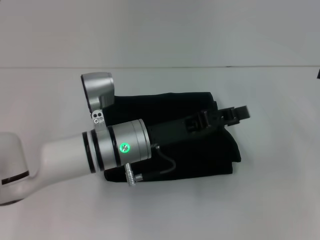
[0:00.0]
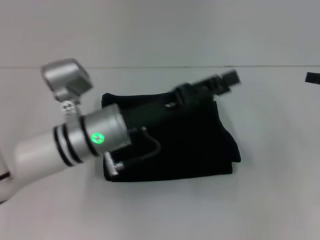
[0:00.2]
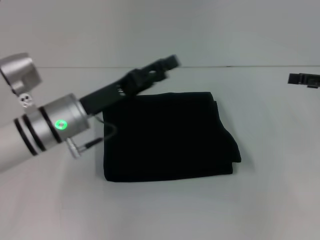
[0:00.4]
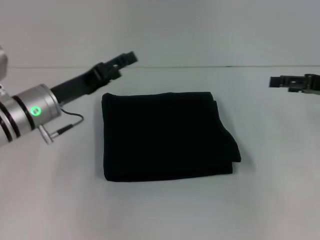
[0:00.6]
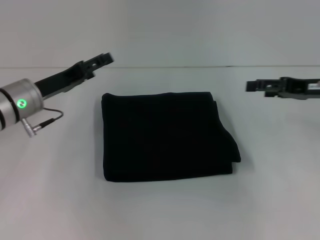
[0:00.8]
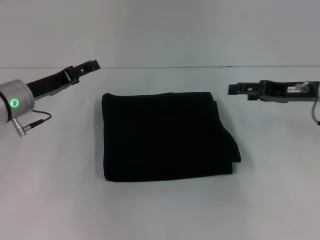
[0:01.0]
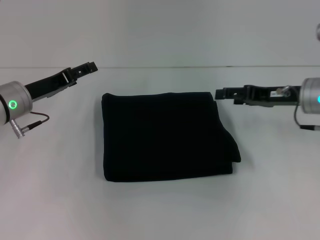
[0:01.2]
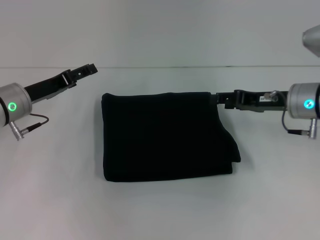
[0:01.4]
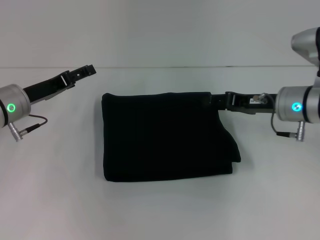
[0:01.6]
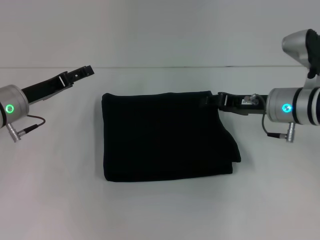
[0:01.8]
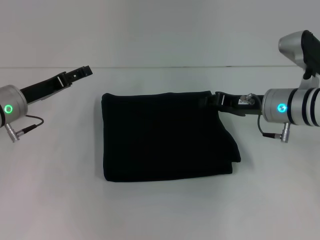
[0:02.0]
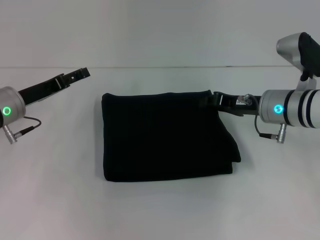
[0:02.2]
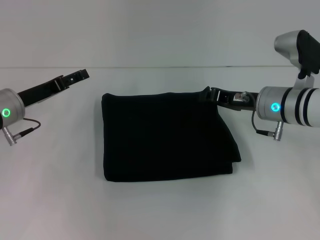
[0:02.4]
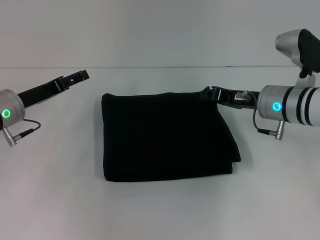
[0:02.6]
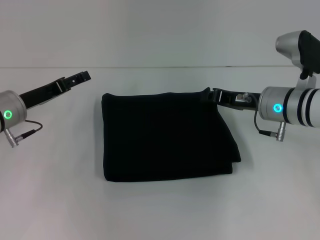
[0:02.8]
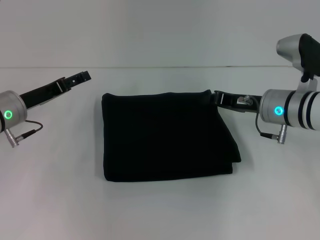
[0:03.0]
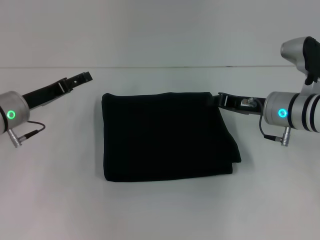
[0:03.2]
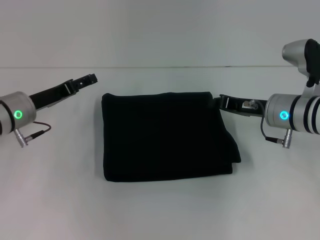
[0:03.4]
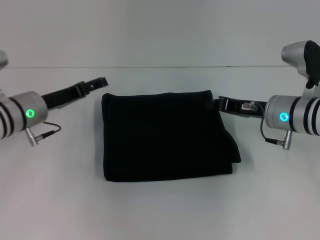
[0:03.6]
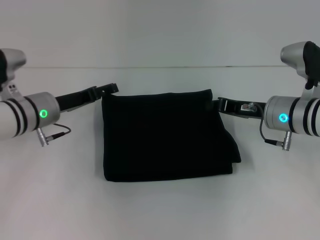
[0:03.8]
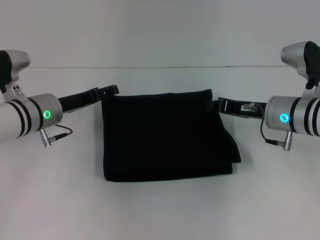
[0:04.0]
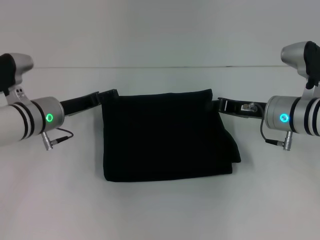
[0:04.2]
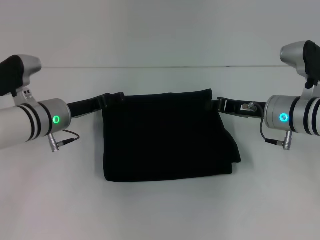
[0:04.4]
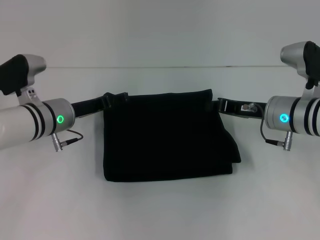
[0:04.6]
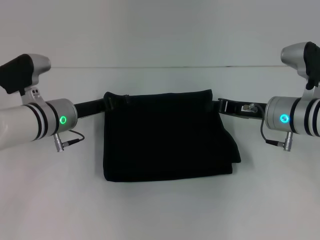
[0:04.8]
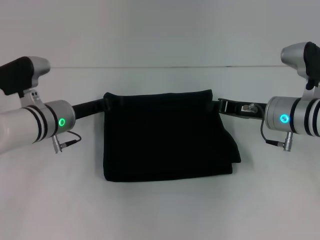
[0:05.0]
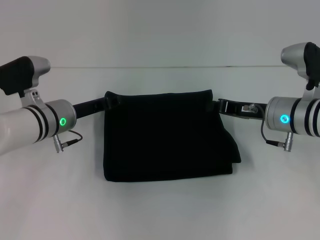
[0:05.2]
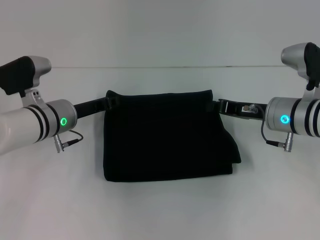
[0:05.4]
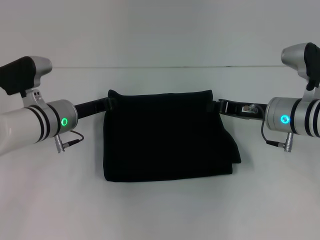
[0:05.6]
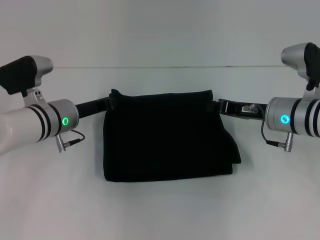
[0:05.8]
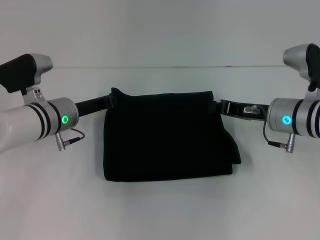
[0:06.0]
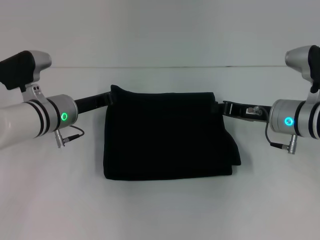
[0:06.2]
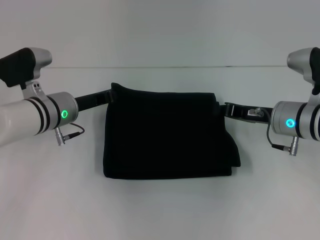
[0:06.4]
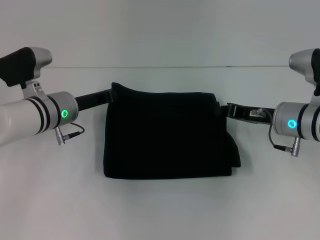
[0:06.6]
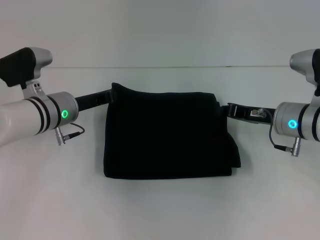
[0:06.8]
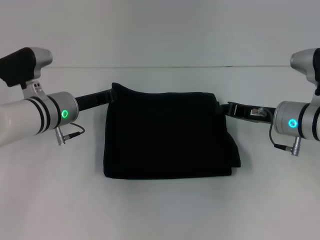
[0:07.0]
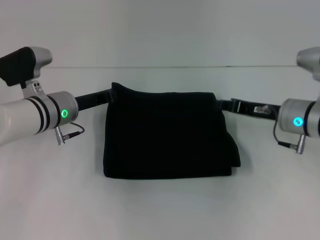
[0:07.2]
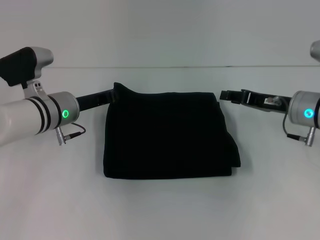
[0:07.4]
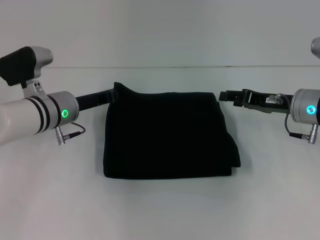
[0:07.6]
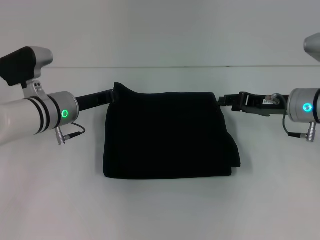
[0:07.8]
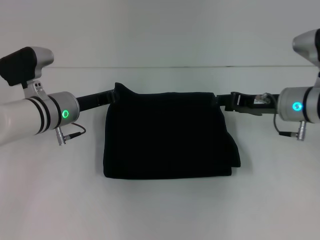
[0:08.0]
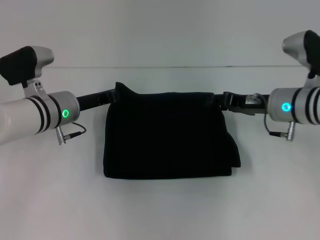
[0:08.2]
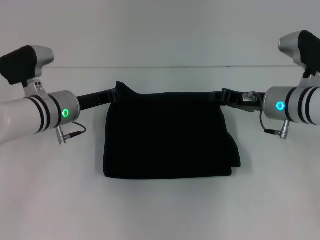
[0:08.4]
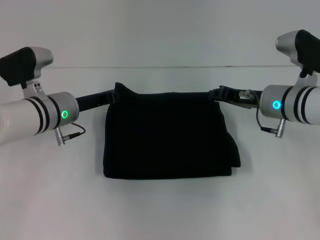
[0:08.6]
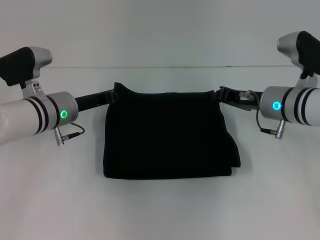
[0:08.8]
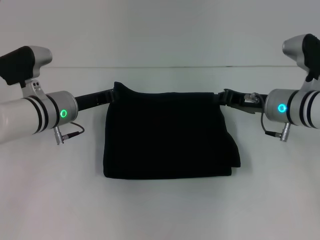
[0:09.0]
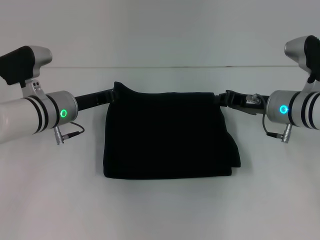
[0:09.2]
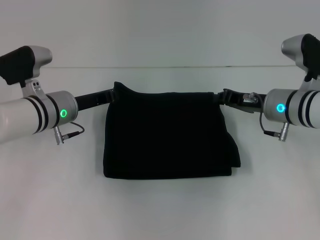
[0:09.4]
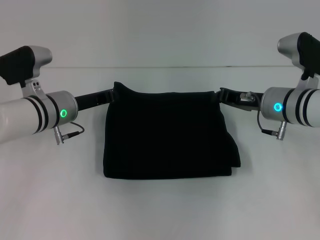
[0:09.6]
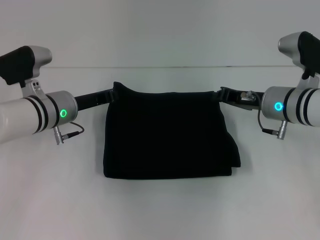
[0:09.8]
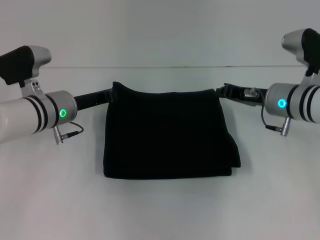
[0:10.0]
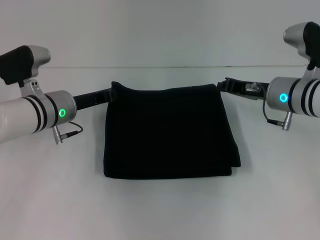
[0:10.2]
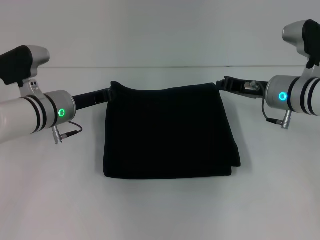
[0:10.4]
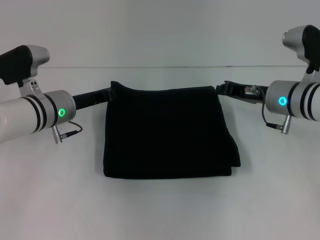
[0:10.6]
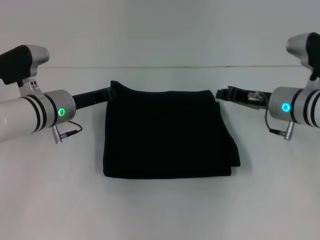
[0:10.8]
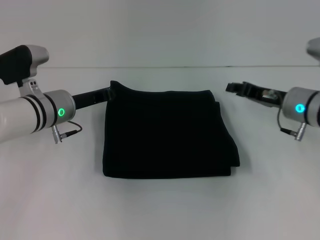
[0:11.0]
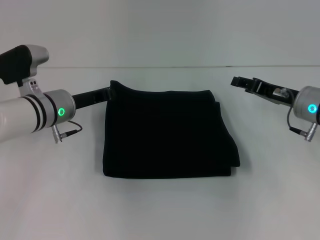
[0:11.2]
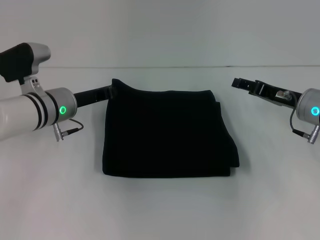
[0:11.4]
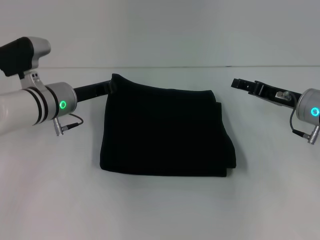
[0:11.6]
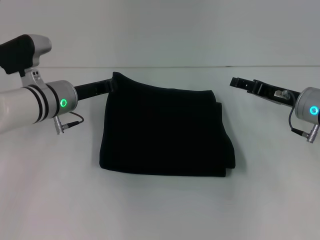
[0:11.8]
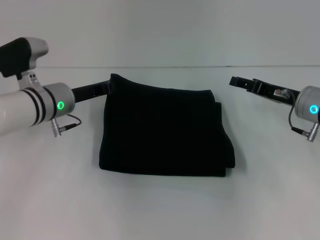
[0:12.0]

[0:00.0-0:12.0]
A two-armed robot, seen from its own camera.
0:00.0 to 0:01.6: Both grippers travel together to the left, roughly 20 cm. The left gripper opens.
0:01.6 to 0:03.0: The right gripper closes its fingers.
0:03.0 to 0:04.4: The left gripper is displaced to the right by roughly 5 cm.
0:04.4 to 0:06.0: The left gripper closes.
0:06.0 to 0:10.4: There are only small adjustments of the grippers.
0:10.4 to 0:12.0: The right gripper ends up roughly 5 cm from where it was, and opens up.

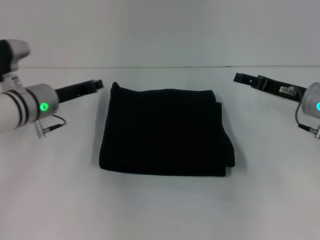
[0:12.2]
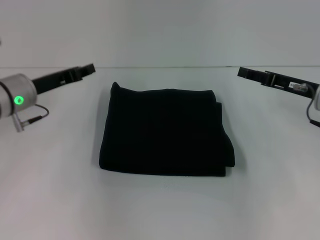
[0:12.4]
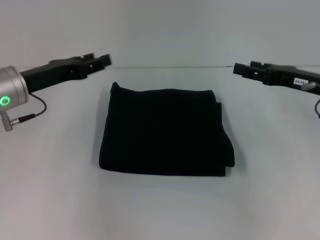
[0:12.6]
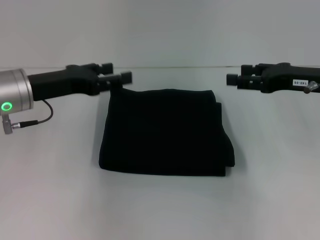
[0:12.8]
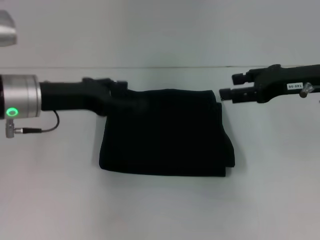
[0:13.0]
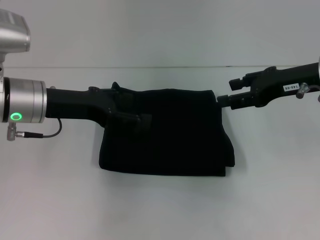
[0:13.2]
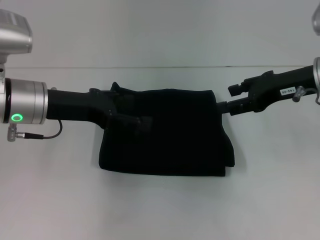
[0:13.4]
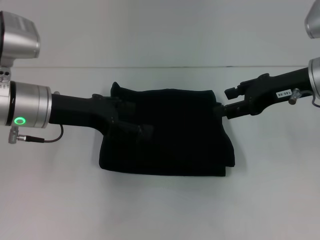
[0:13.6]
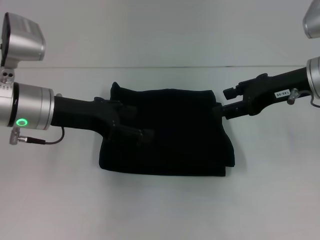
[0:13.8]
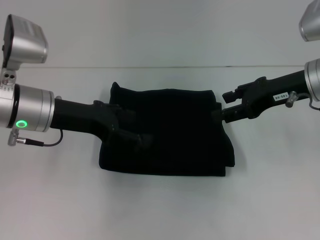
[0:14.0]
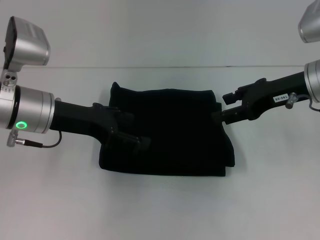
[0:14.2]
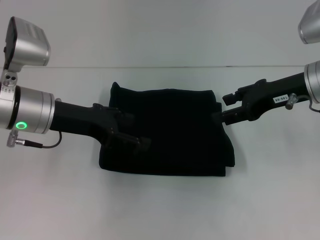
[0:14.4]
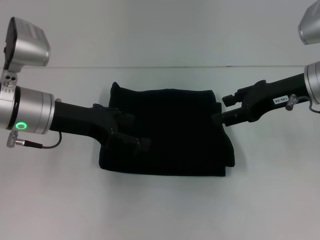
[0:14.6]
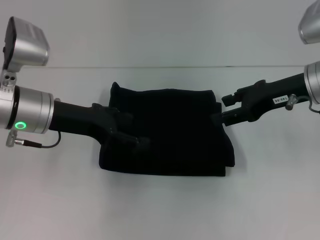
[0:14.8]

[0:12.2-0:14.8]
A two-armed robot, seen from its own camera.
0:12.2 to 0:13.4: The left gripper is displaced upward and backward by about 10 cm, and opens its fingers; the right gripper shifts some 10 cm upward.
0:13.4 to 0:14.8: The grippers move only a little.

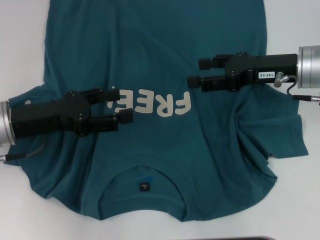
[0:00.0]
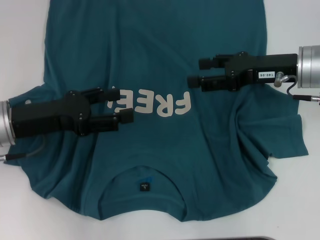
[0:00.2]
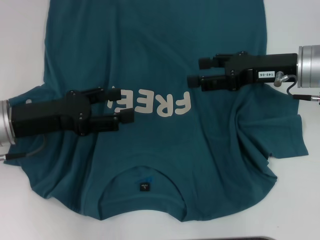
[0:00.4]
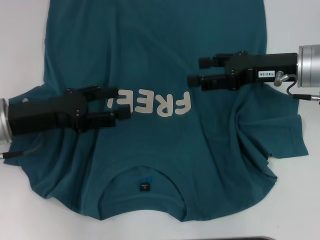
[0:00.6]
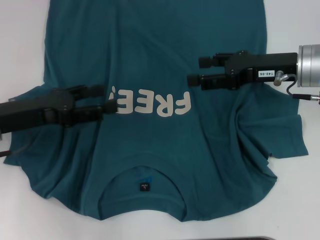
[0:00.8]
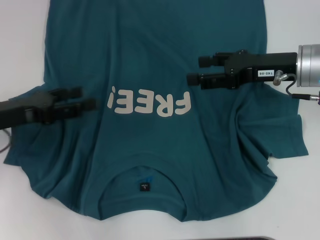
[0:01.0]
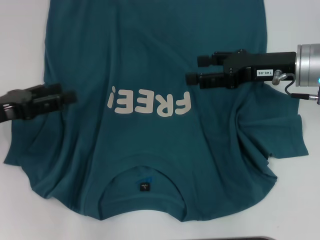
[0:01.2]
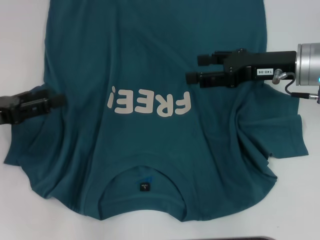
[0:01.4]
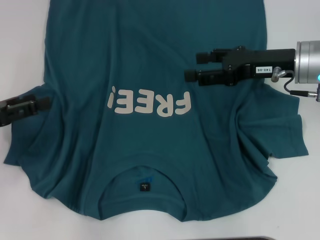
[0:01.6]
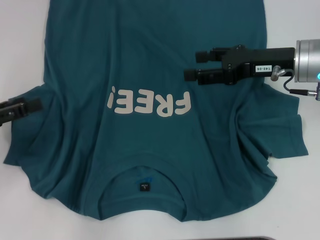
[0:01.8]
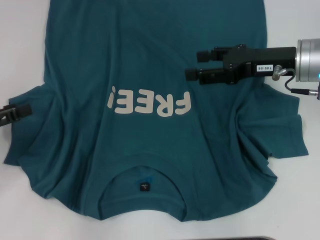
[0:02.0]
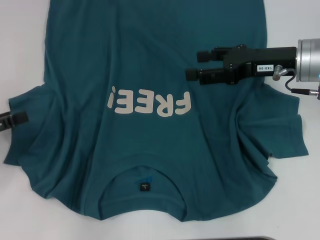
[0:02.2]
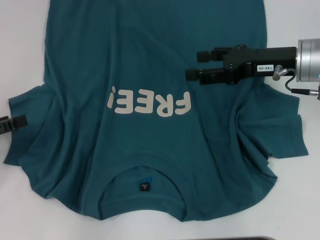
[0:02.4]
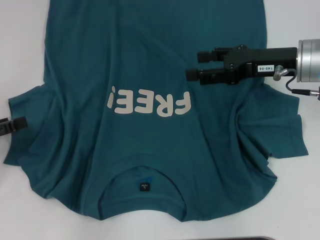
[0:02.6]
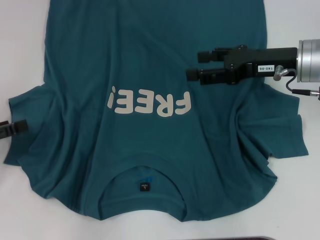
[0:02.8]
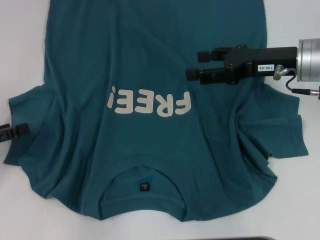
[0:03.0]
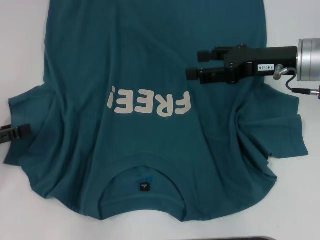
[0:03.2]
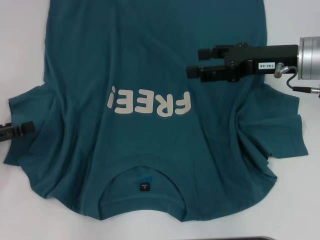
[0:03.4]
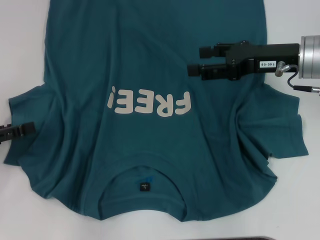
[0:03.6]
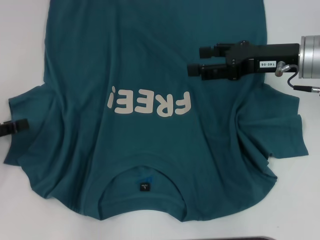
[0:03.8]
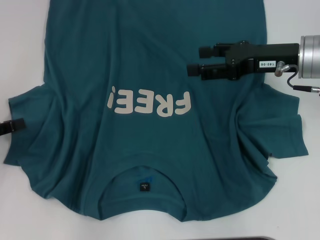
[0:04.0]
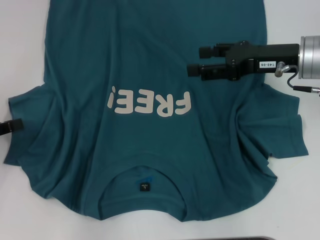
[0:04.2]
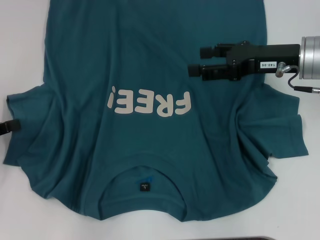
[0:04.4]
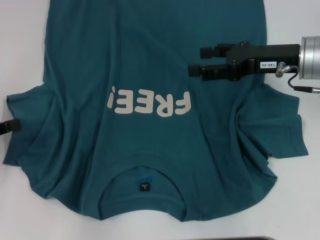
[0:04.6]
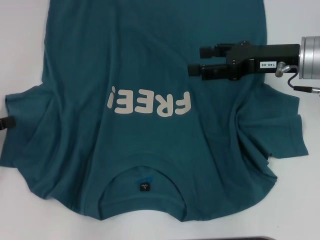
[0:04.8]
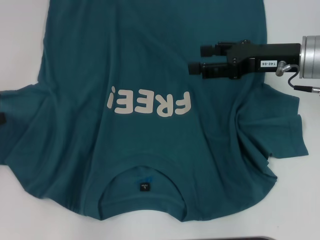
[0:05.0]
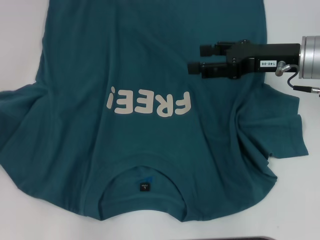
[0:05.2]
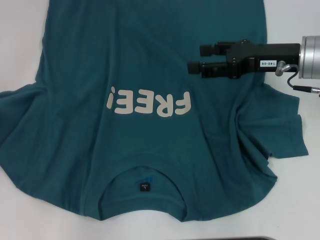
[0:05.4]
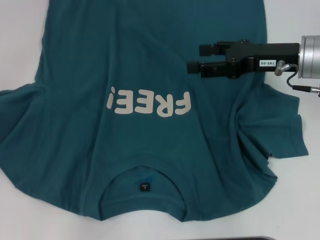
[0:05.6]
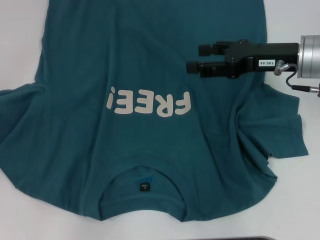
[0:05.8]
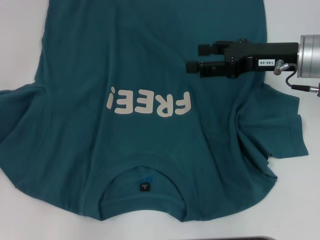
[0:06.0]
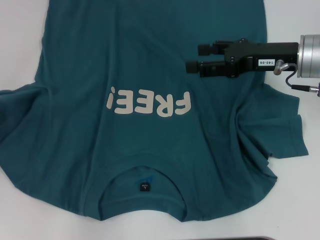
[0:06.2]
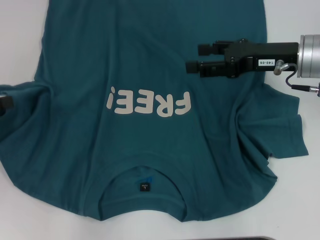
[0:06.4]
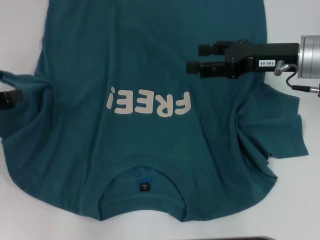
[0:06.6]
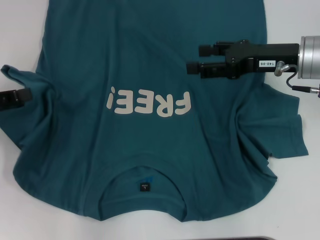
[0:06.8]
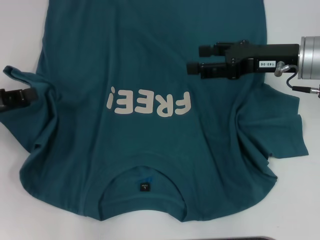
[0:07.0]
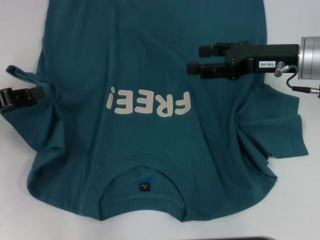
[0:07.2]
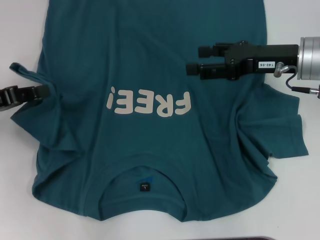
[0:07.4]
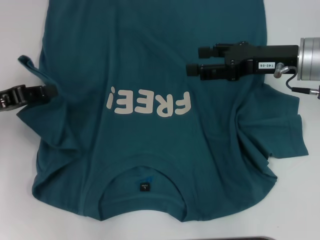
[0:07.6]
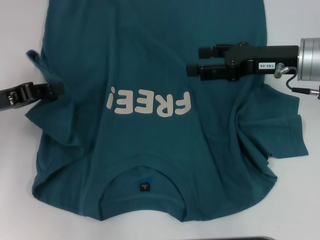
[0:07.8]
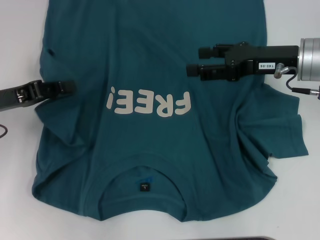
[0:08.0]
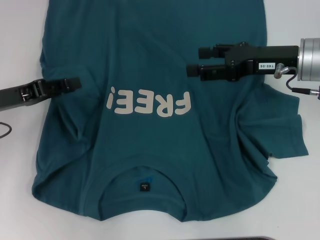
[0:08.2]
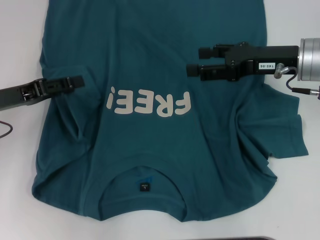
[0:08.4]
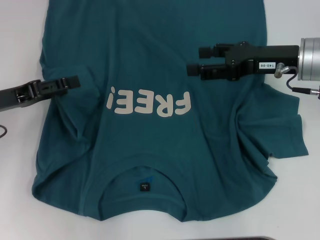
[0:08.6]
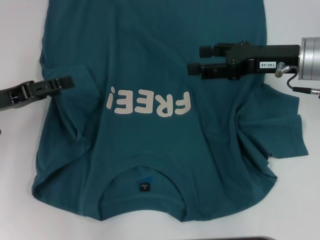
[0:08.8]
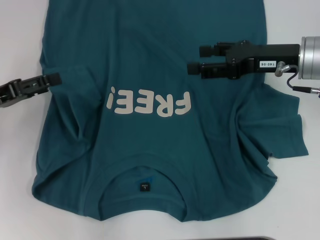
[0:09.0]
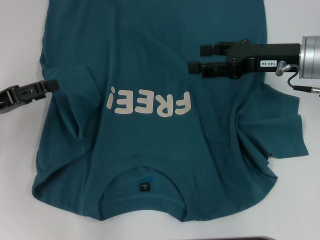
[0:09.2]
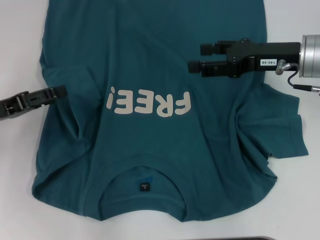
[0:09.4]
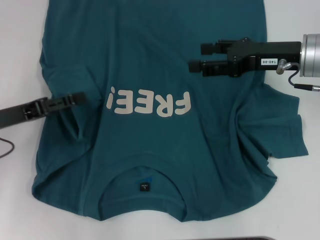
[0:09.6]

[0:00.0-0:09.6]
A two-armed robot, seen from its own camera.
0:00.0 to 0:01.6: The left gripper moves to the left, roughly 10 cm.
0:01.6 to 0:03.2: The grippers move only a little.
0:03.2 to 0:04.8: The left gripper closes up.
0:04.8 to 0:06.4: The grippers make only small movements.
0:06.4 to 0:08.0: The left gripper is displaced to the right by approximately 5 cm.
0:08.0 to 0:09.6: The left gripper opens.
